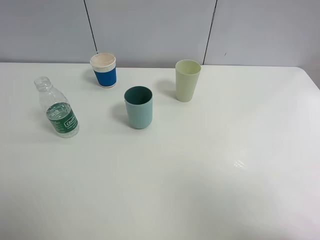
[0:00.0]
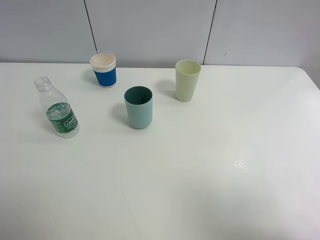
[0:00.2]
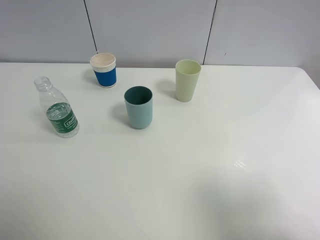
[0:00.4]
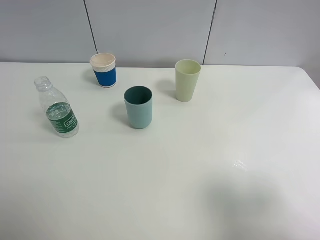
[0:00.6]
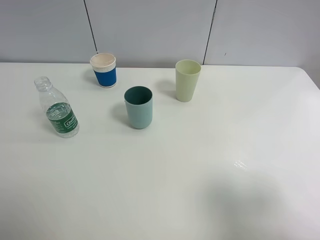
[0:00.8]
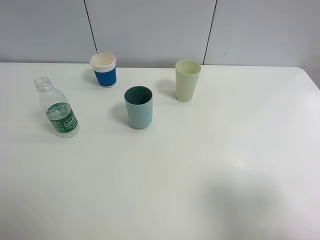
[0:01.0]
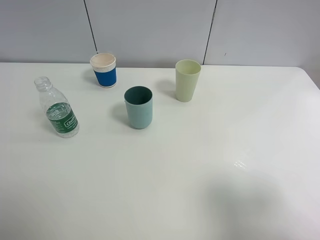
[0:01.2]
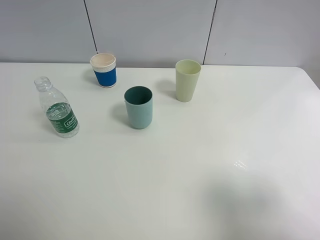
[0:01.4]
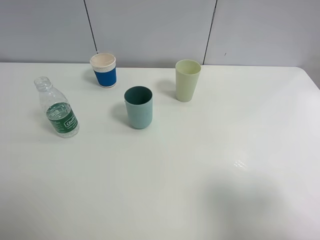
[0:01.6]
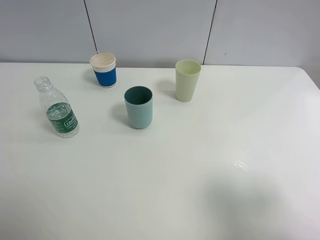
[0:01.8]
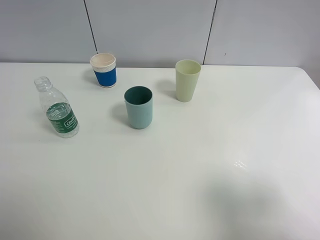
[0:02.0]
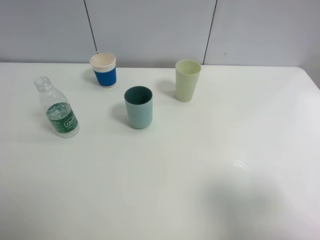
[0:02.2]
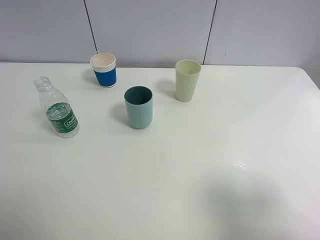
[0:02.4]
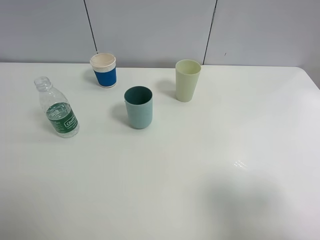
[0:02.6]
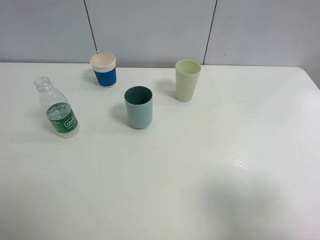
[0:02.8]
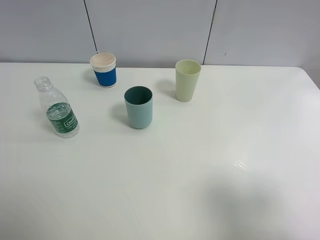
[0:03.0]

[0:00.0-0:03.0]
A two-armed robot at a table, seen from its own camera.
Task of the whole recording: use a clamp to hold the bottle of the drink, pour the beverage into a random cup, then clamp the cup containing the drink and pour the drink into another random cup.
0:01.6 to 0:03.0: Both grippers stay put.
